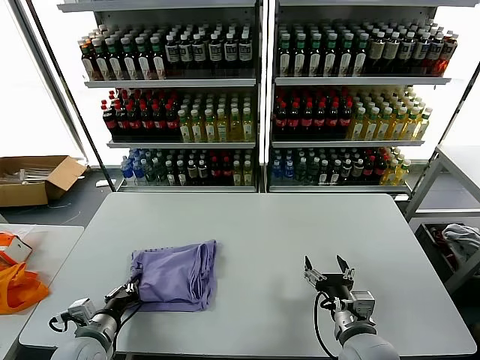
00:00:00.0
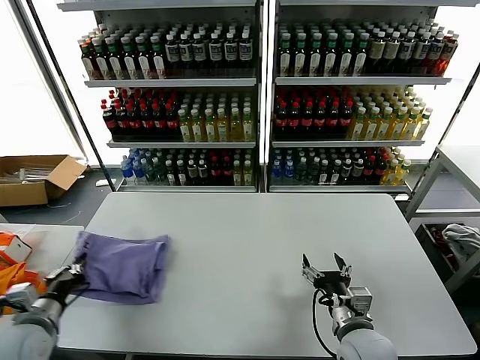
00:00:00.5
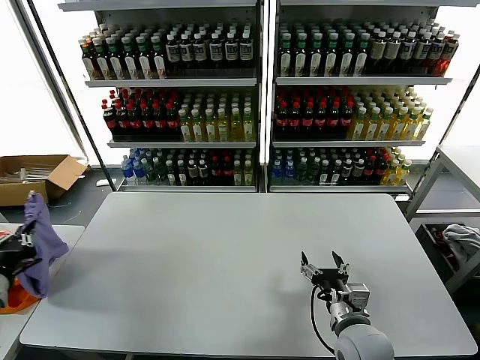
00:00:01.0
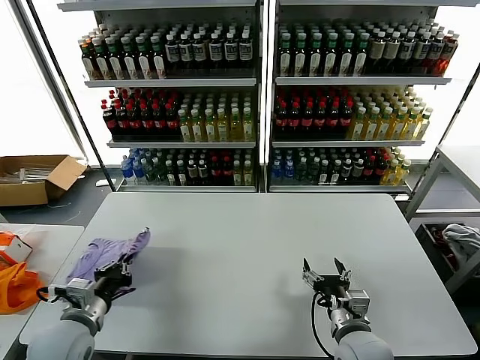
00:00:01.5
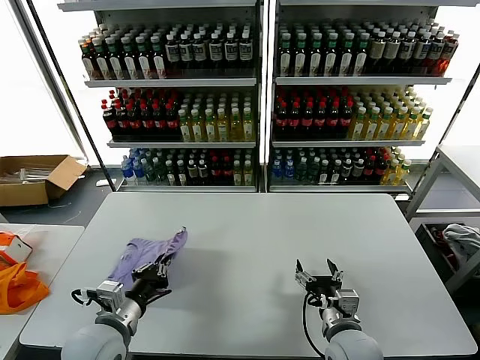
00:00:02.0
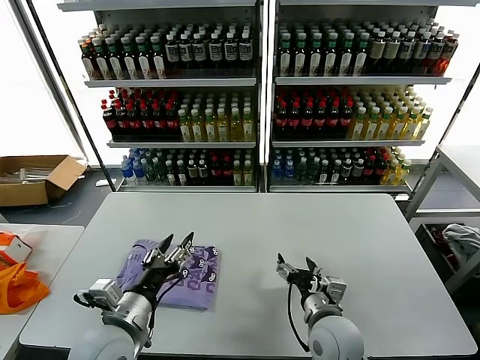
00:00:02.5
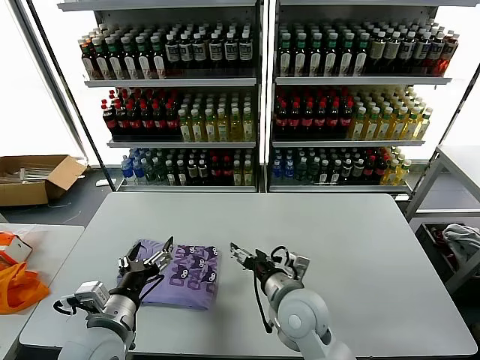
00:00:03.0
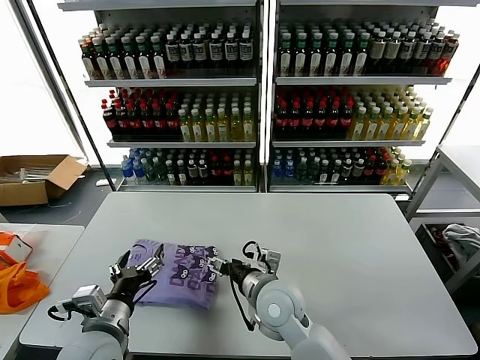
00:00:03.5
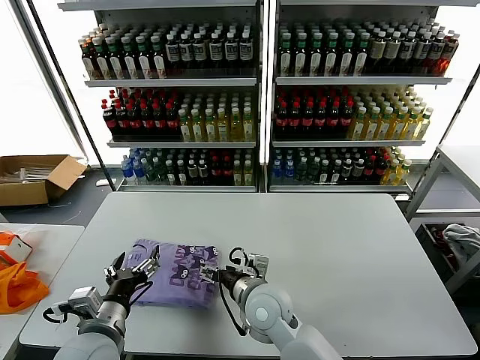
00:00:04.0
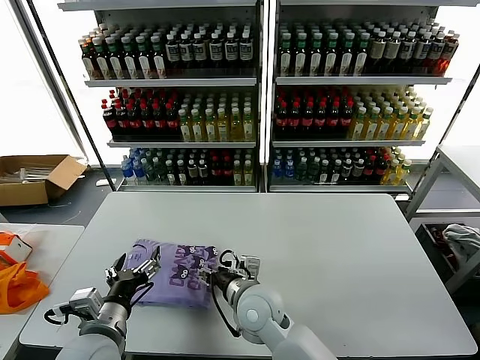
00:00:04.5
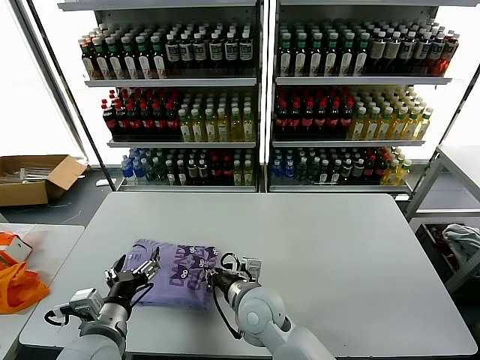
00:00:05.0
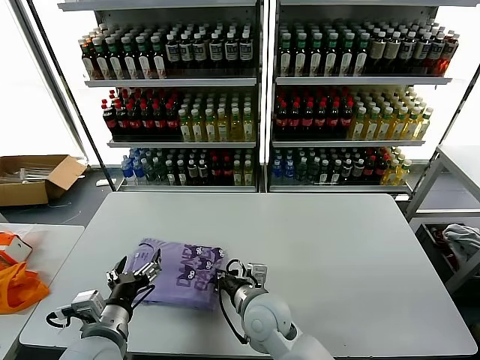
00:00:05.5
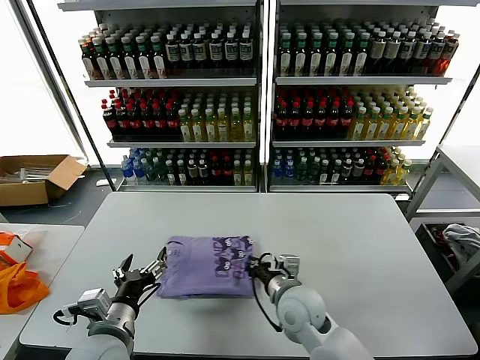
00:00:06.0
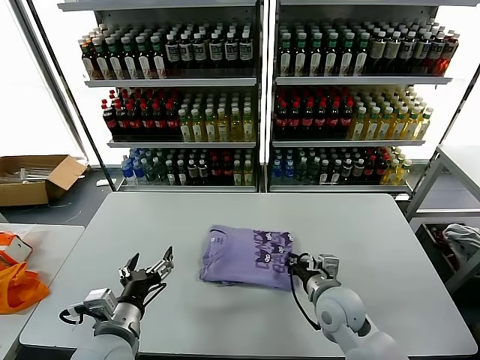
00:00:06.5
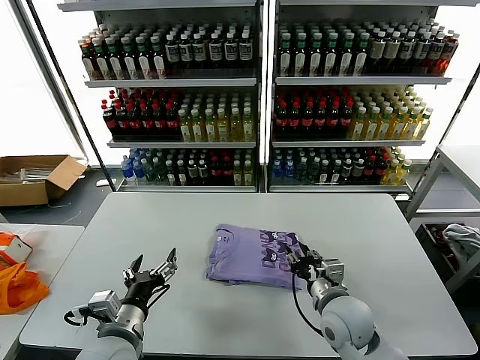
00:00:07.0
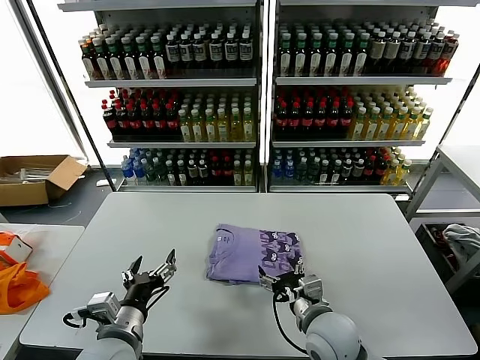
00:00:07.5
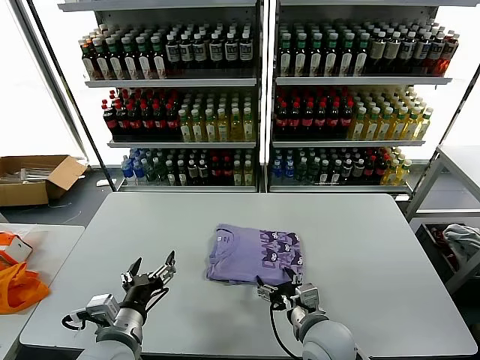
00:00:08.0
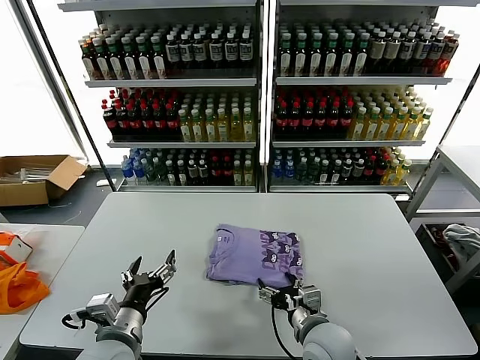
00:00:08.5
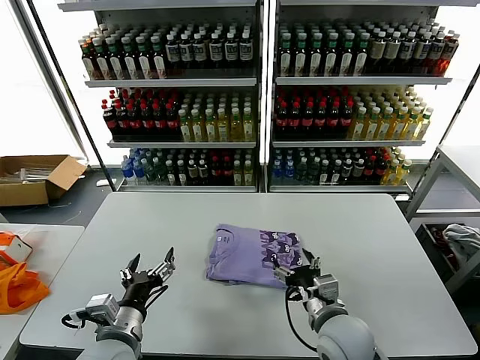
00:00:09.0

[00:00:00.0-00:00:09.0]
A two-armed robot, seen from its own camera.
Task of the whole recording: fold and organize the clothes.
Step, 00:00:00.0 to 00:00:02.0: Flip the folded clothes over with left gripper.
Step, 00:00:02.5 to 00:00:08.5: Drag the clothes to the center of the table.
00:00:00.0 to 00:00:02.0: The left gripper is displaced upward by roughly 10 cm, and travels to the left and back again, about 15 cm each way.
00:00:02.0 to 00:00:04.5: The left gripper opens its fingers, while the right gripper travels to the left and forward by some 20 cm.
00:00:04.5 to 00:00:07.0: The right gripper heads to the right, covering some 15 cm, and closes its fingers.
00:00:07.0 to 00:00:09.0: The right gripper moves about 5 cm, and opens up.

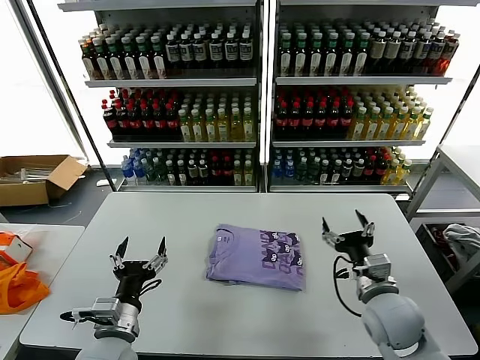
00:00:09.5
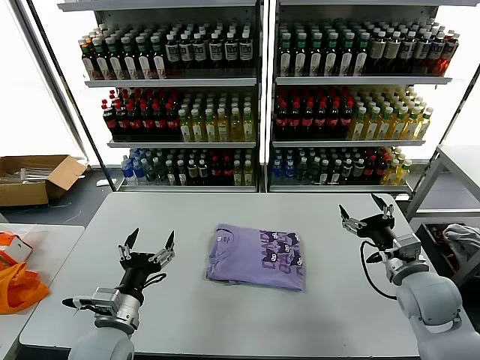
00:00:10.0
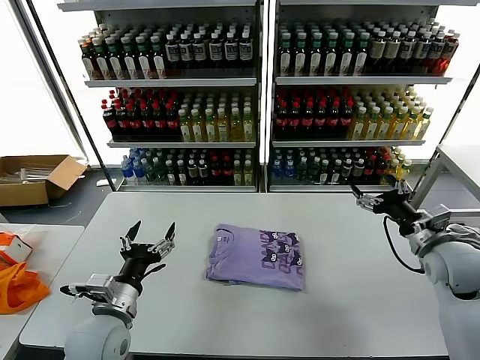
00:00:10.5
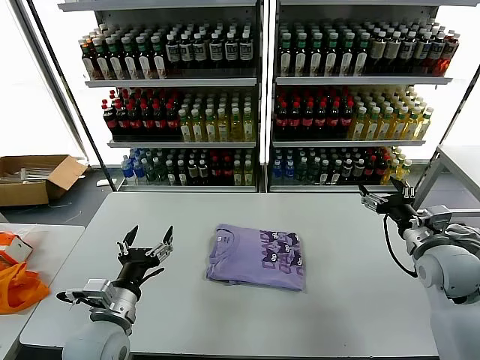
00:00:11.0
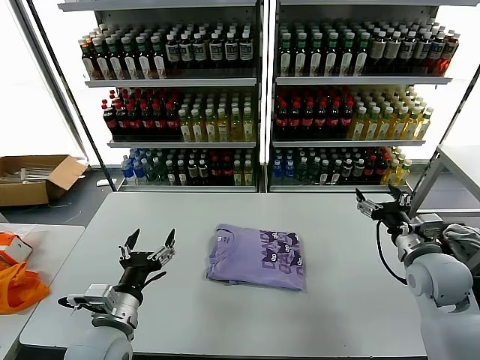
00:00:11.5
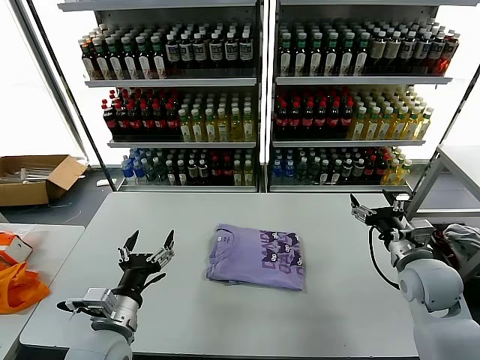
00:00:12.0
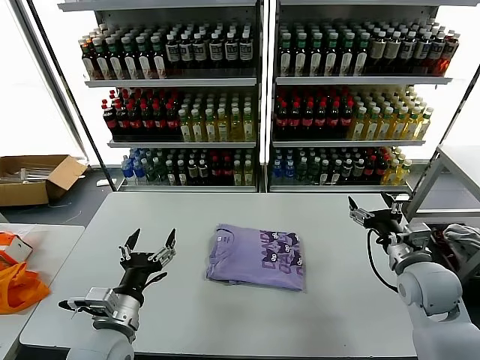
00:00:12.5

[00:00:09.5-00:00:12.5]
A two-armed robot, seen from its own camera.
Task of the whole recording: fold and organize the clothes.
00:00:09.5 to 00:00:11.0: The right gripper moves to the right, upward and forward, roughly 15 cm.
00:00:11.0 to 00:00:12.5: The right gripper changes place by approximately 5 cm.
